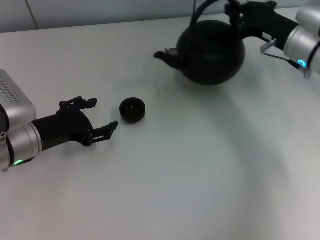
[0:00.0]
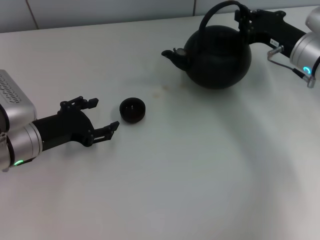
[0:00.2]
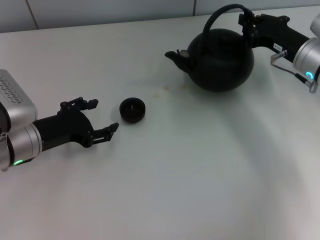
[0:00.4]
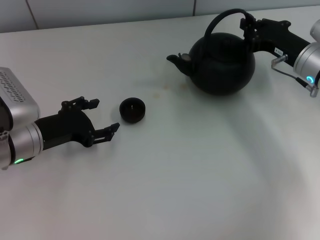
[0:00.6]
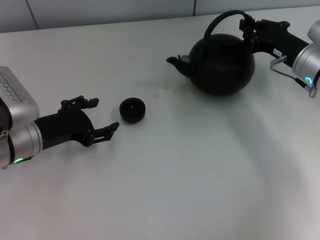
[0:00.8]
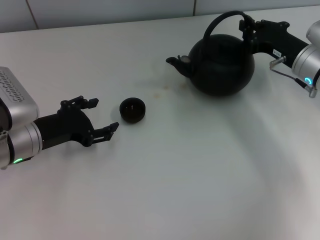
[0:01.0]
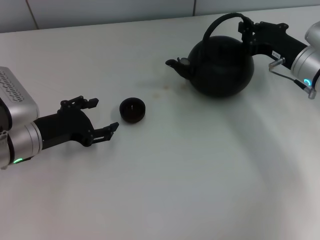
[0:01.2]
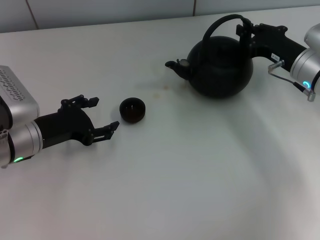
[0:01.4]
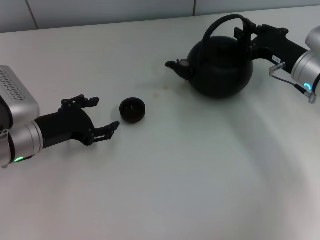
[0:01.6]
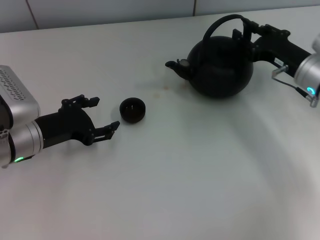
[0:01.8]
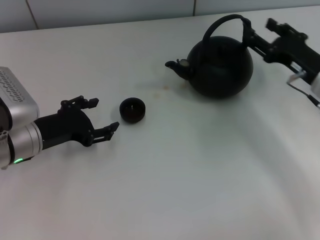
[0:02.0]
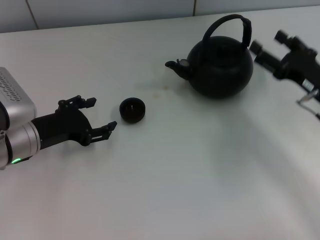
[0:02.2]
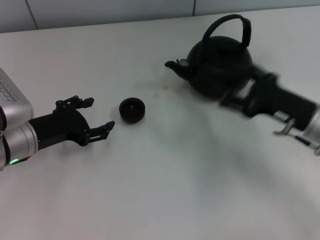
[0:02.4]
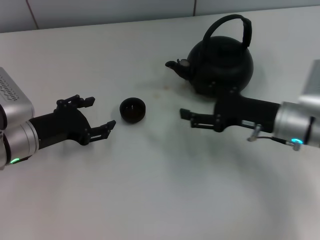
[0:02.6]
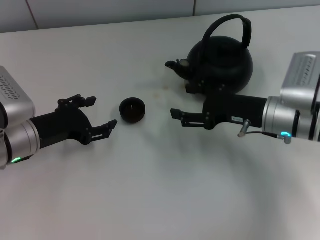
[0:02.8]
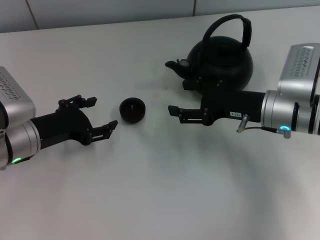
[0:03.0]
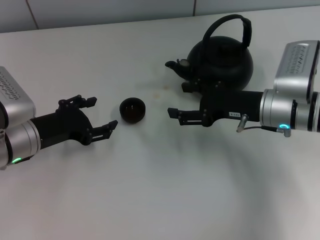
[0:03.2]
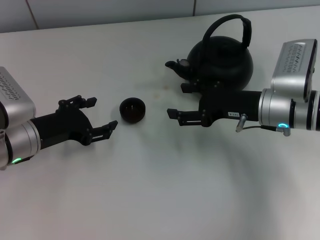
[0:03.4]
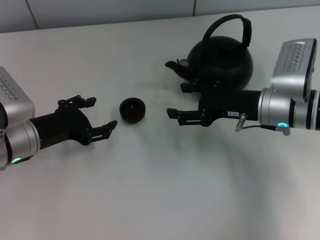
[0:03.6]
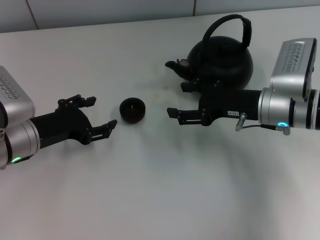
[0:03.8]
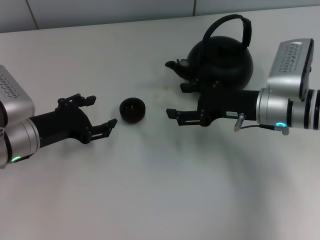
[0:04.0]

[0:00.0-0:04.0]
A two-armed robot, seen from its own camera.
Task of the whole recording: Grasp the handle of the teapot with one hand and pour tea into the teacup.
Step, 0:00.0 to 0:02.6: Put down the teapot with the right gripper.
0:00.0 to 0:01.4: There are only small adjustments of the grippers.
0:01.4 to 0:02.6: The right gripper goes some 5 cm backward, and opens its fingers.
0:02.6 to 0:04.0: There are only small adjustments of the grippers.
